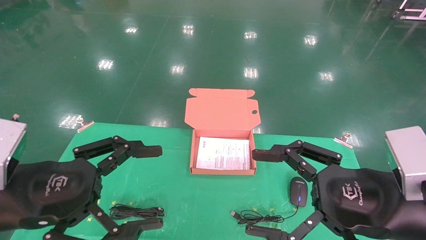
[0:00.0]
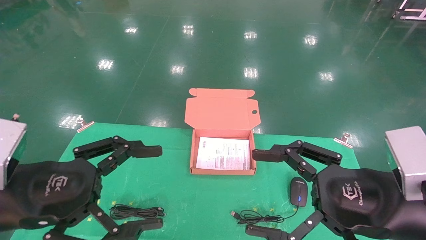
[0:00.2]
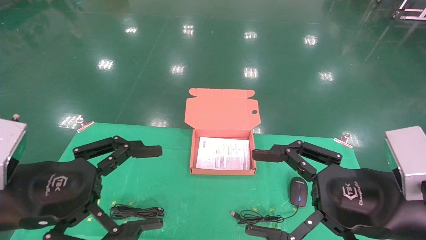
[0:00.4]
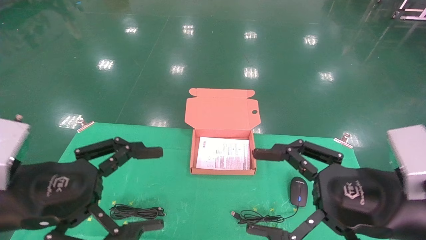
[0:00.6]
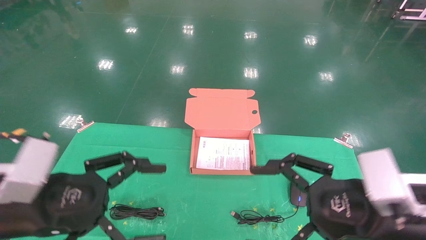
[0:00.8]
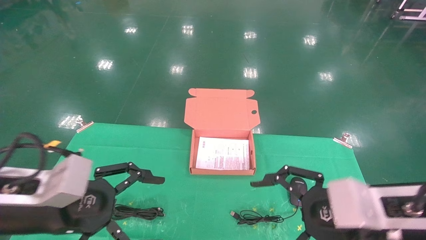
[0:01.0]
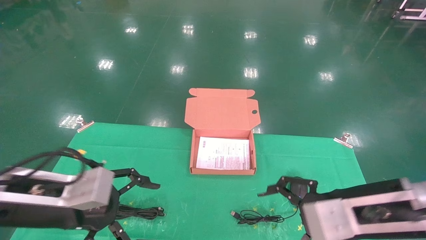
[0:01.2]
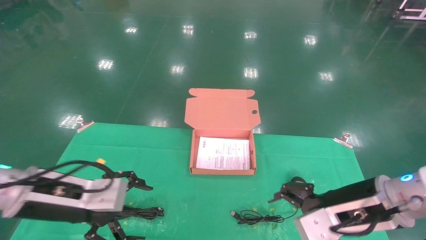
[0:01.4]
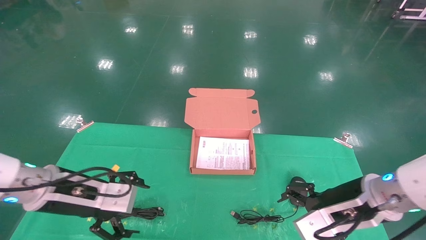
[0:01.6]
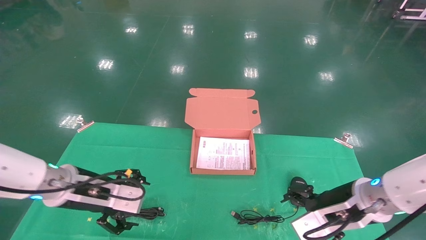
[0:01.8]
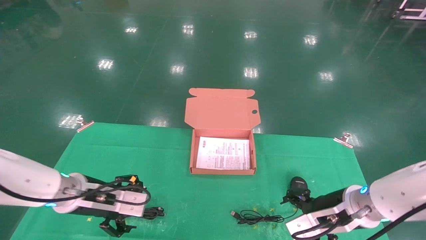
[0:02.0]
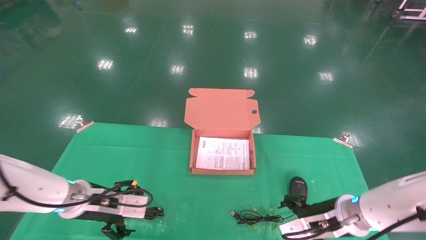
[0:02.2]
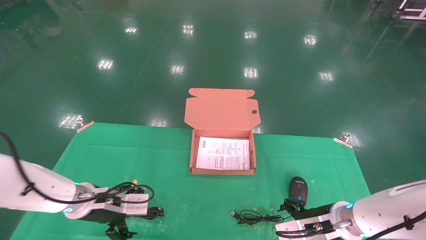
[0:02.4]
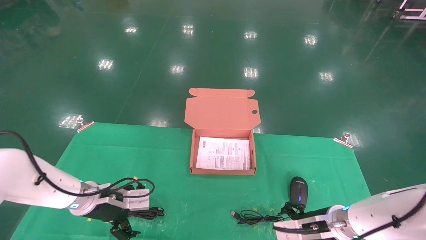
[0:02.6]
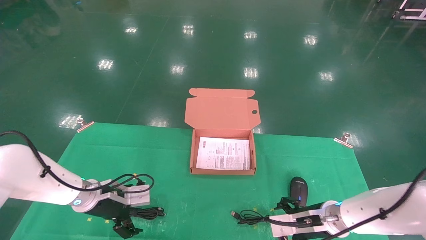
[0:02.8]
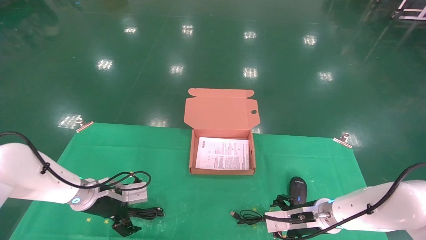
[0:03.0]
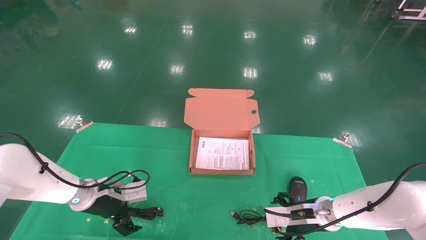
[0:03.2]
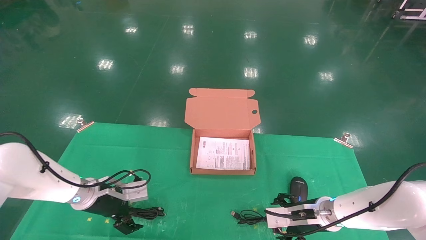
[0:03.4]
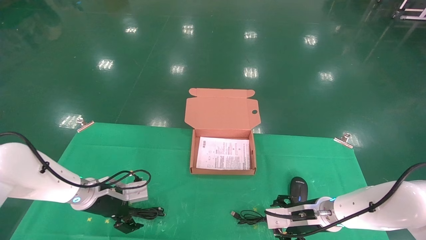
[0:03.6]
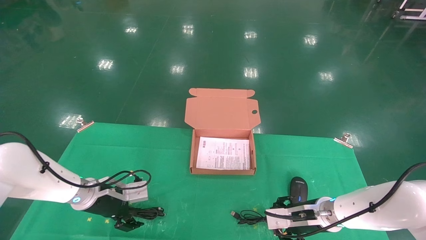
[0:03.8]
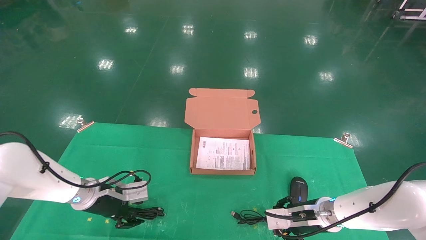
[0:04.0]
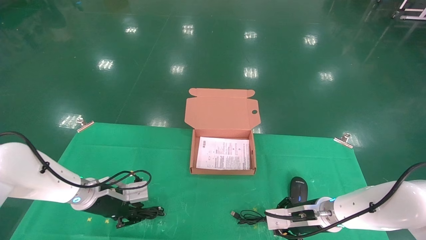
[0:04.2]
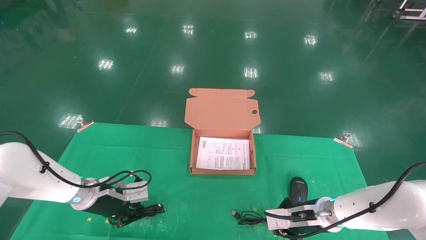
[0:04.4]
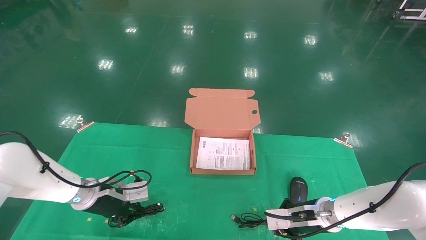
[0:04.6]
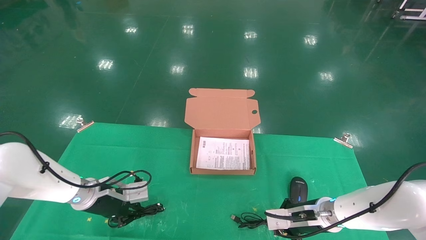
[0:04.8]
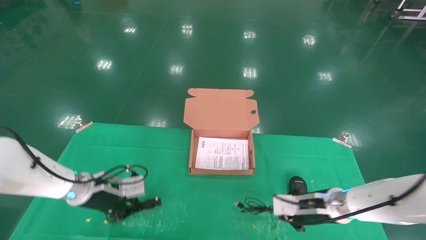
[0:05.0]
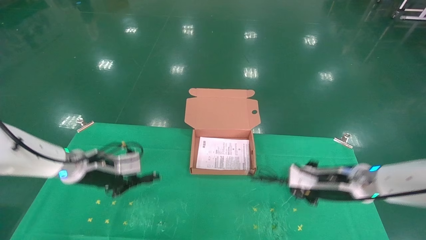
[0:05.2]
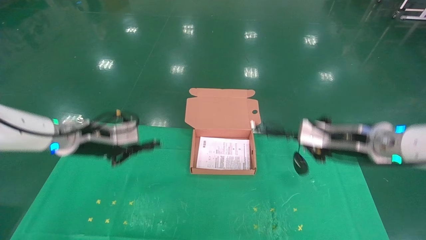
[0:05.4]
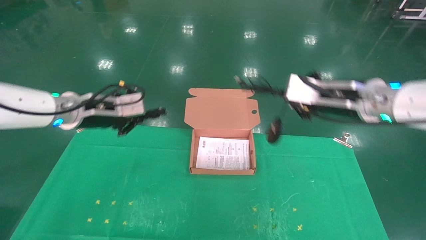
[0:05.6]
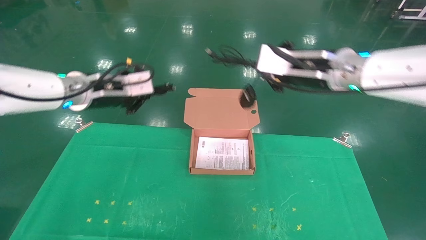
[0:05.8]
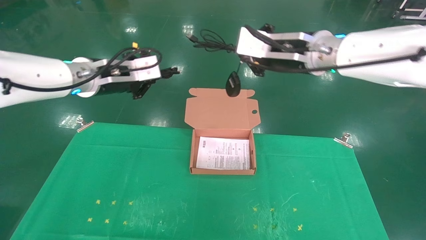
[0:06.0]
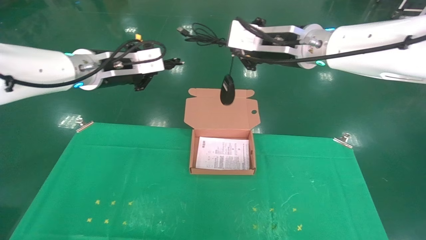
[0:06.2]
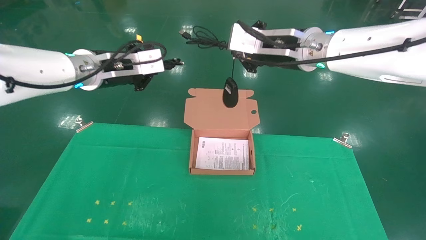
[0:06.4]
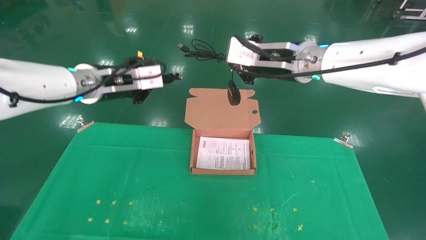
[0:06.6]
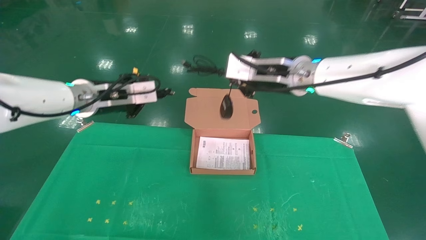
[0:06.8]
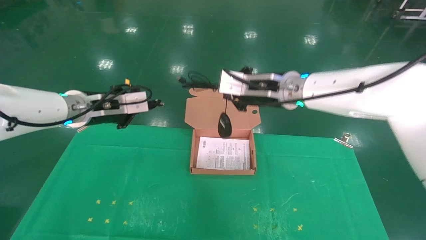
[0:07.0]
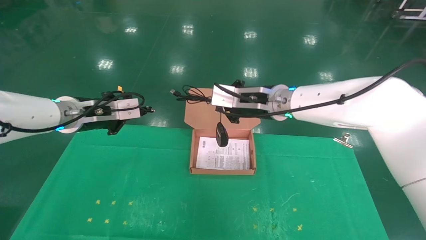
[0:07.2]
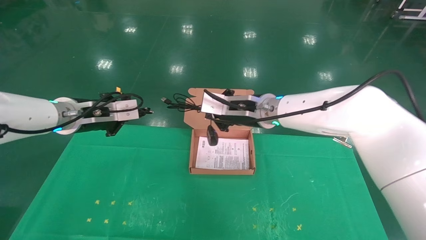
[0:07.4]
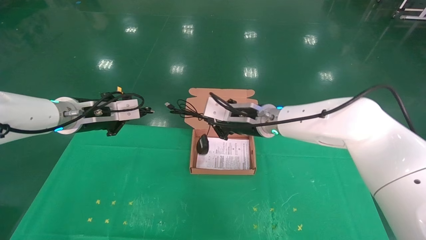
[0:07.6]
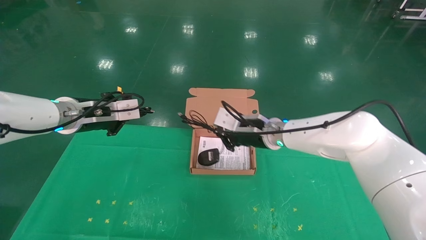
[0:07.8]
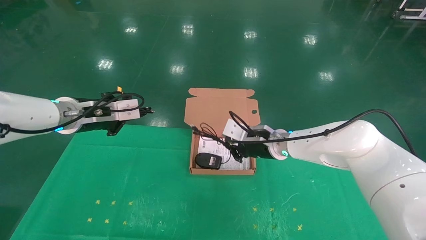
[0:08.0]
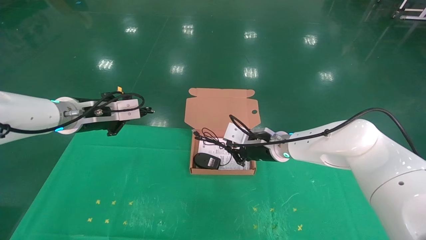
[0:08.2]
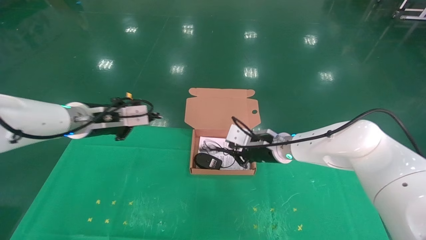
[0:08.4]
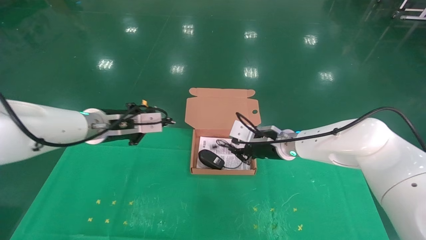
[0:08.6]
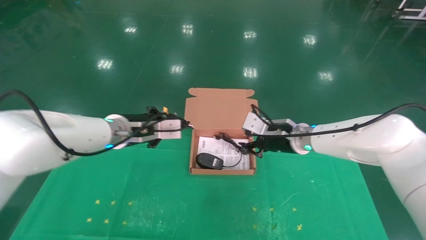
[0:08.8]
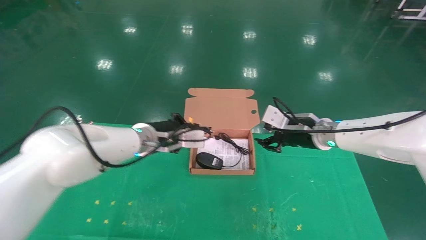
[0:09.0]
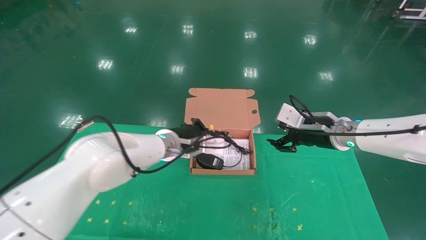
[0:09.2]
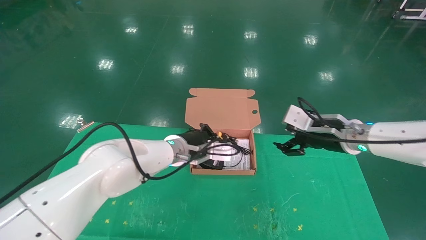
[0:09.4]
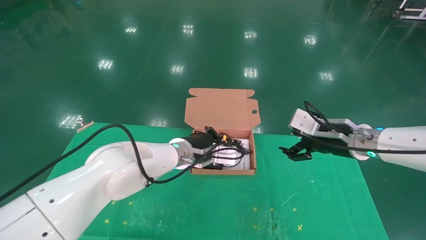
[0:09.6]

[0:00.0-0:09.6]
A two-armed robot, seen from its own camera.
Task of the whole recording: grasp data cable left put into box grasp mouse right put into box.
Step, 0:00.8 to 0:05.4: Grab and pick up both the mouse and power cord from the accessory packaging area at the same time.
0:00.0 to 0:01.6: Both grippers travel together forward and downward, some 10 cm.
0:01.6 to 0:03.2: The right gripper goes roughly 15 cm downward and forward. Meanwhile the left gripper goes about 15 cm forward and downward.
0:03.2 to 0:04.8: The left gripper closes its fingers. Meanwhile the right gripper closes its fingers.
0:04.8 to 0:06.4: Both grippers travel together upward, approximately 30 cm.
0:06.4 to 0:08.0: The left gripper is displaced downward and to the left by some 10 cm. Meanwhile the right gripper travels downward by approximately 20 cm.
0:08.0 to 0:09.6: The right gripper heads to the right and backward, covering roughly 15 cm, and opens up. The left gripper travels to the right and downward by roughly 25 cm.

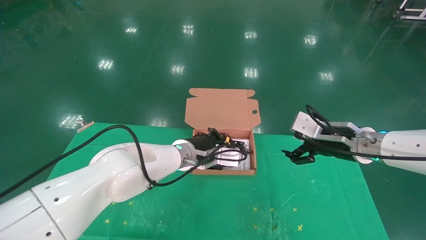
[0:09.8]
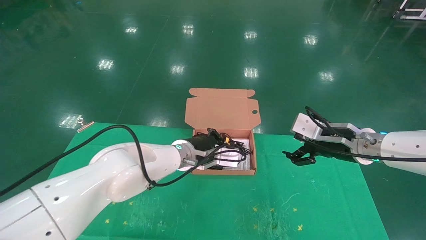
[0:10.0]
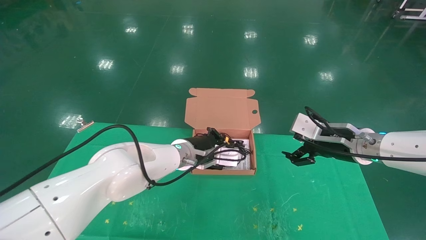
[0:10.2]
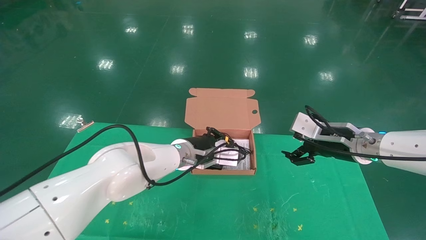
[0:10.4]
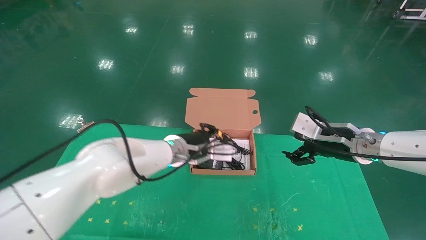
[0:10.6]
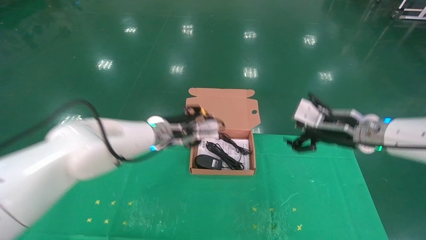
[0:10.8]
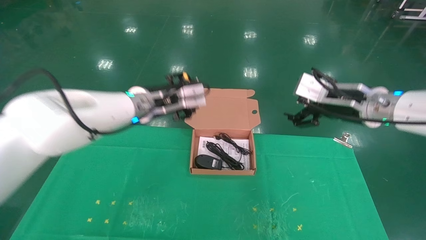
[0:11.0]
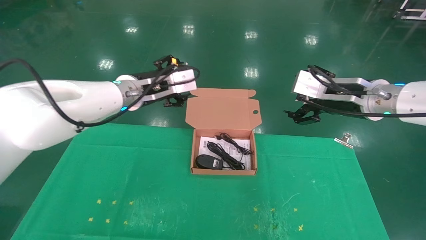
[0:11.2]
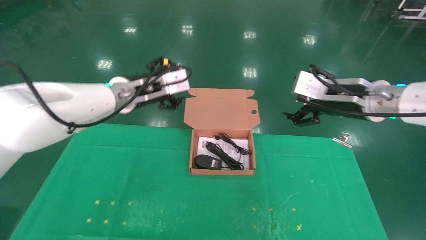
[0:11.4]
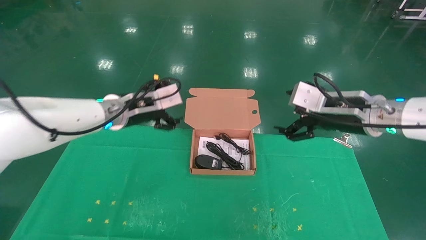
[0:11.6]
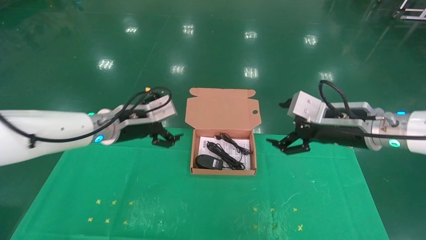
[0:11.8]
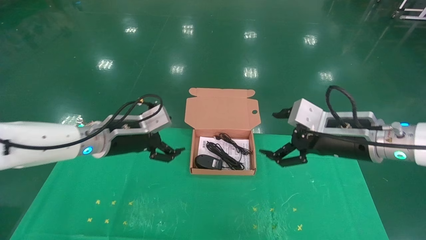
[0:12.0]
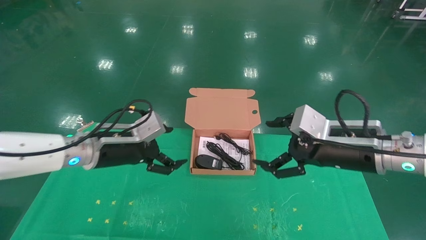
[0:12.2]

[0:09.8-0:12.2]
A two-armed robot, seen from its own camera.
Task of the whole recording: grasp data cable left put into box grasp mouse right put into box.
0:09.8 to 0:11.0: The right gripper moves upward, roughly 5 cm, while the left gripper moves upward and to the left, some 15 cm, and opens its fingers.
0:11.0 to 0:12.2: The left gripper heads to the left, backward and downward, covering approximately 15 cm, and opens, while the right gripper travels backward by approximately 5 cm.
